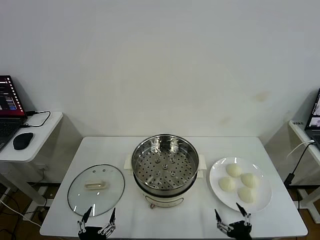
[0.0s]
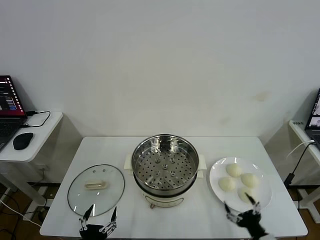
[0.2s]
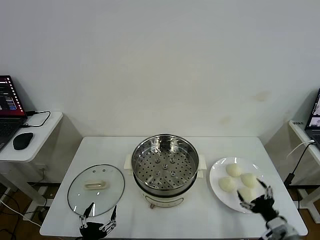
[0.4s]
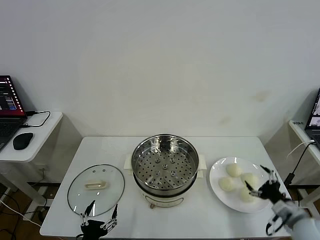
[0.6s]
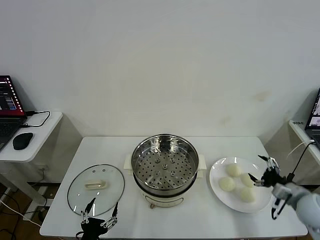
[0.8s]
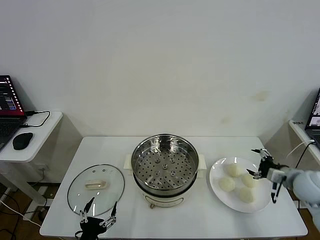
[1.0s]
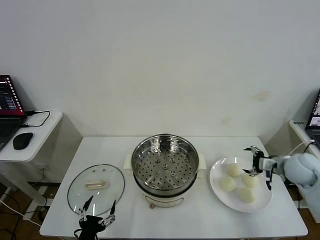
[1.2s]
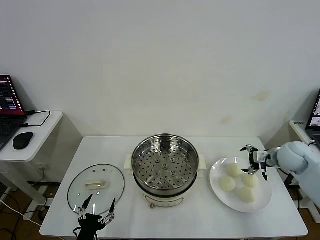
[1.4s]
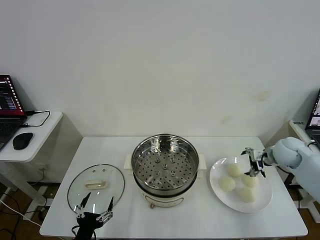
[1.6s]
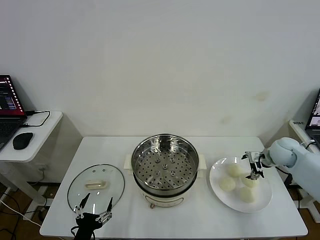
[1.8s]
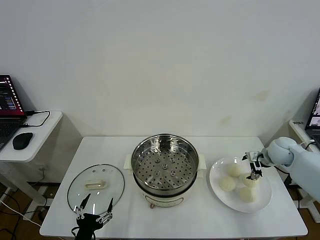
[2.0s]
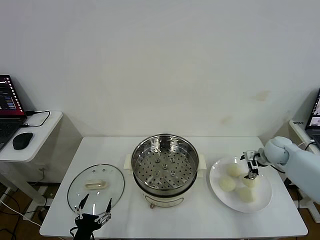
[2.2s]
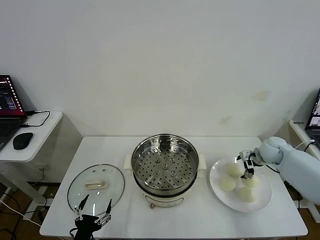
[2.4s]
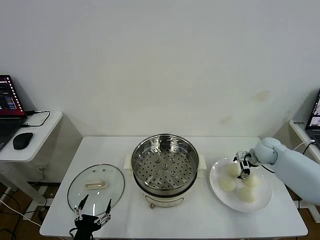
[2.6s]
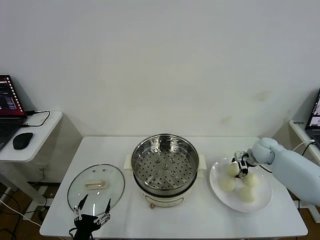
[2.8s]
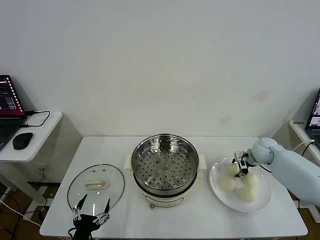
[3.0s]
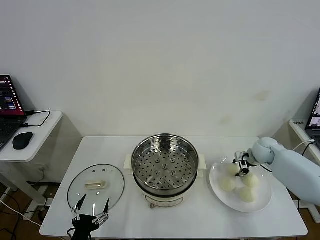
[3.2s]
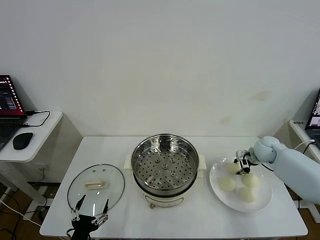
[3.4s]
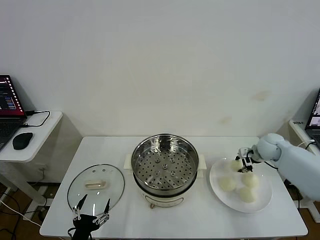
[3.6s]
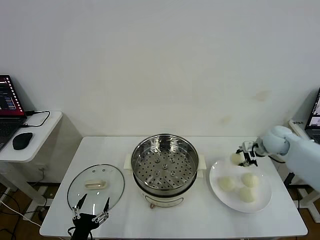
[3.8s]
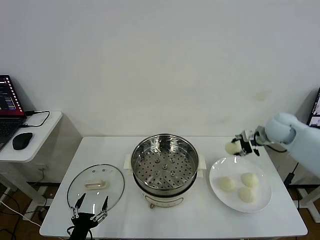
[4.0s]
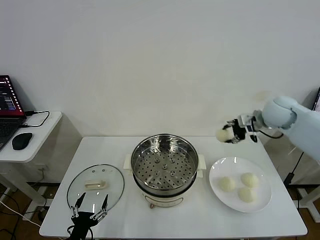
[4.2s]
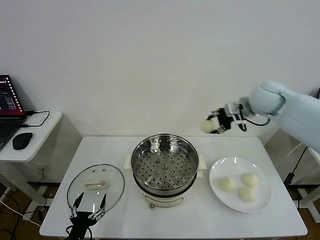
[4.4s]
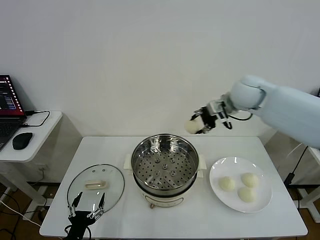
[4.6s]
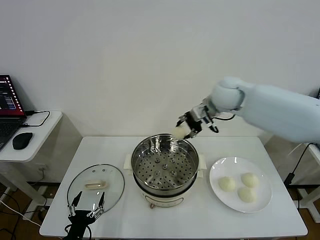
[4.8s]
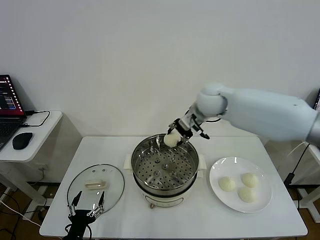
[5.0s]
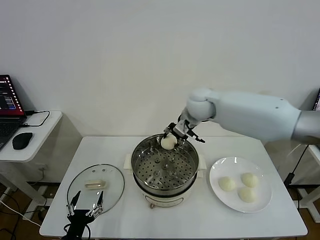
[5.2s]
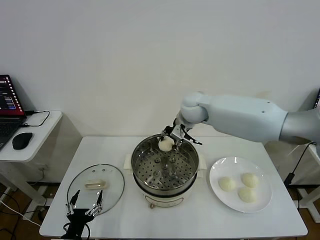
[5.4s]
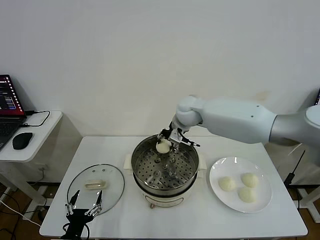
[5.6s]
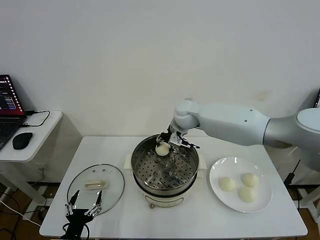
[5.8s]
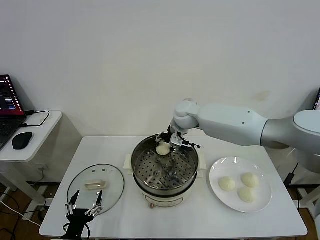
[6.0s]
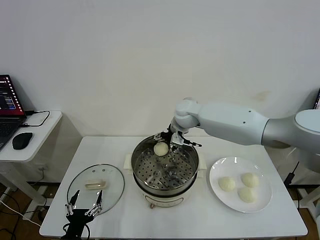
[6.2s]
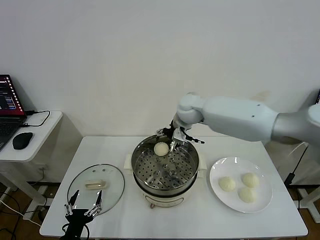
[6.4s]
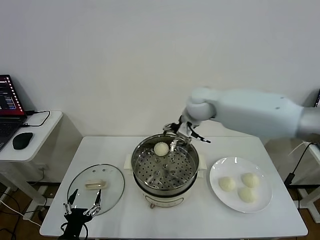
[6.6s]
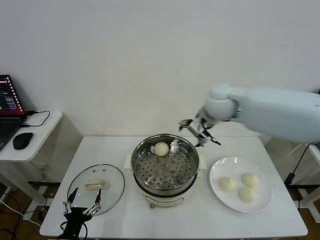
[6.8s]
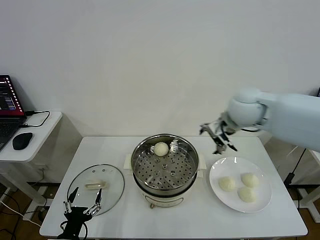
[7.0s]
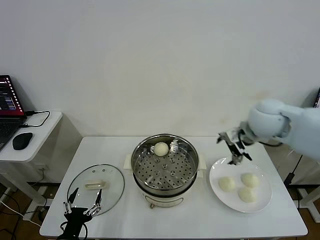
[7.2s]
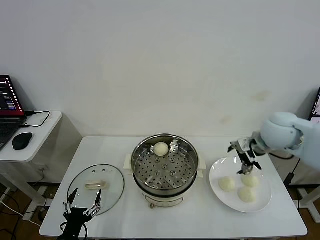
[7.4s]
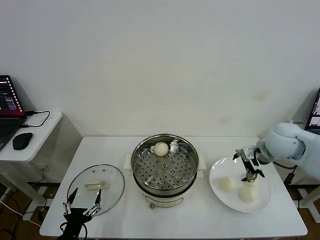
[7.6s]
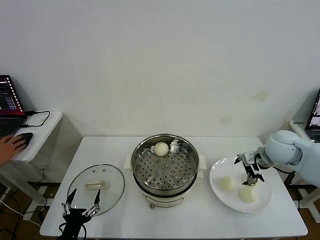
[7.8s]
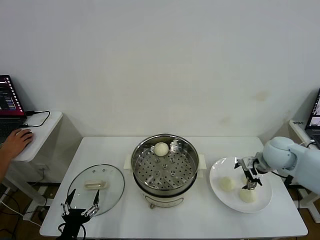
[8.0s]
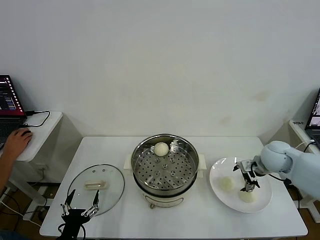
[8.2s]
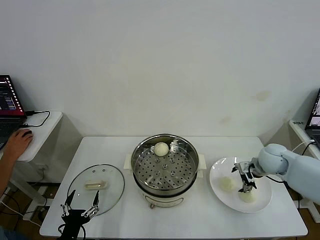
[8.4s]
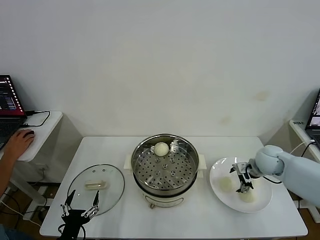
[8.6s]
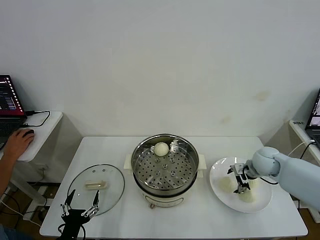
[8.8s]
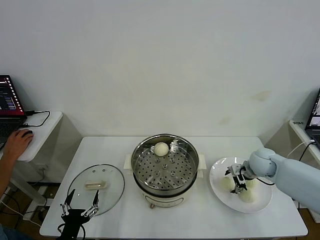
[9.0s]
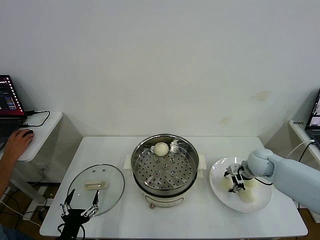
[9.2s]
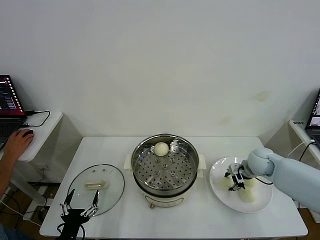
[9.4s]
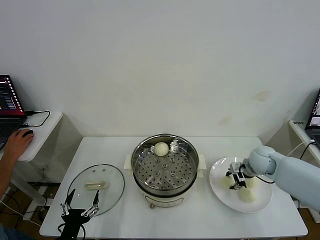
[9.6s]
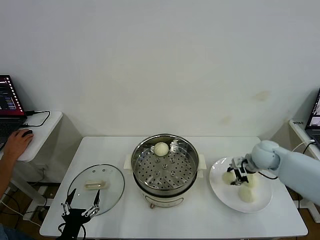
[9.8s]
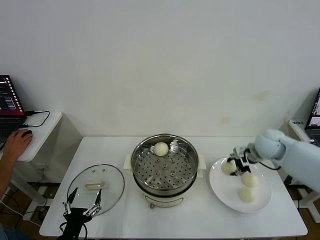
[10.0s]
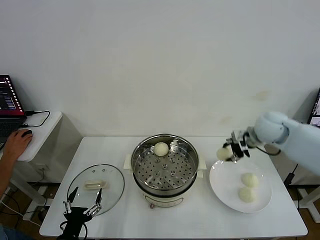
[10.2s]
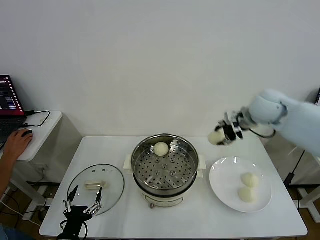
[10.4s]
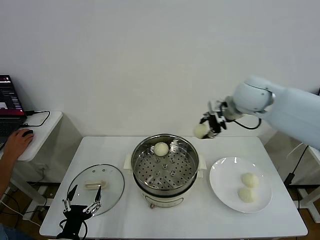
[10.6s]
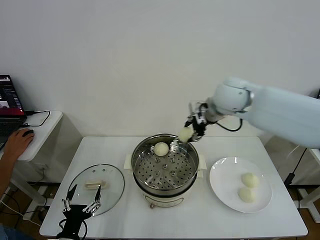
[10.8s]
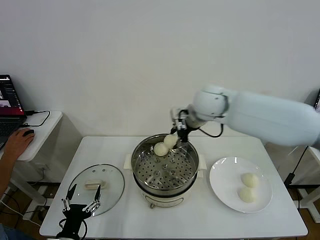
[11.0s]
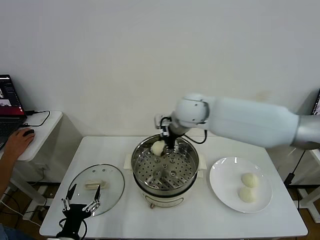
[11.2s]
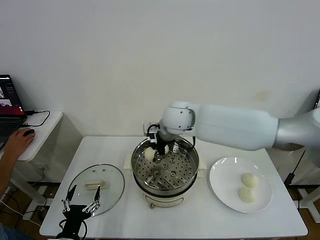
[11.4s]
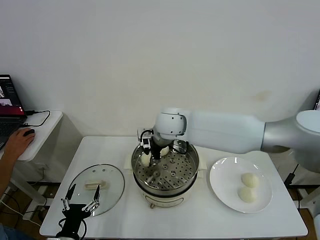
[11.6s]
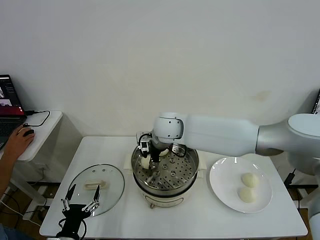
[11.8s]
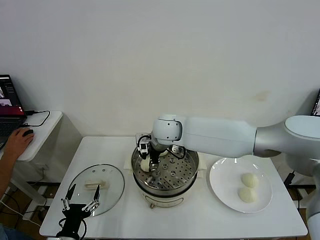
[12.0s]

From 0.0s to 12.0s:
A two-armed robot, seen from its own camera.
Task of the whole recording: take steamed baozi put them in steamer then cover it.
Step, from 0.0s to 3.2s: Grasp the baozi in the plate with right gripper.
Step, from 3.4s to 6.2s: Place the baozi on the steamer with right gripper.
Step, from 6.4s to 9.6s: Grasp the baozi in the plate with right gripper.
From 1.6s to 3.0s: The right gripper shifts roughly 10 cm downward and forward, and closes.
From 3.0s to 4.4s: The right gripper moves upward and to the left, roughly 25 cm, and closes.
From 4.4s to 6.0s: The right gripper moves to the left and downward, approximately 25 cm.
From 6.0s to 7.6s: The right gripper is displaced to the right and backward by approximately 30 cm, and opens up.
From 7.6s to 9.0s: The right gripper moves downward, approximately 15 cm.
From 9.0s to 10.4s: The right gripper is displaced upward by some 20 cm, and closes its fingers.
From 10.4s to 12.0s: The right gripper travels to the left by roughly 30 cm, and opens its fingers.

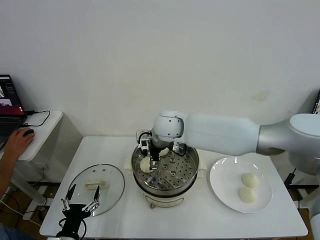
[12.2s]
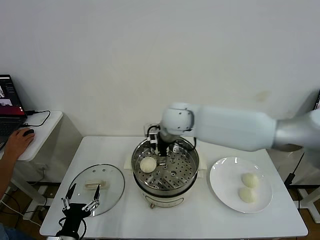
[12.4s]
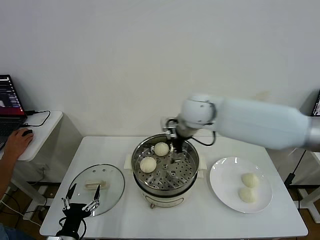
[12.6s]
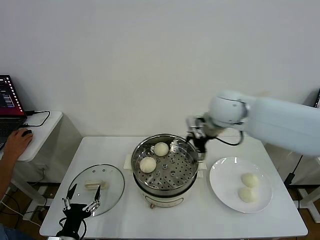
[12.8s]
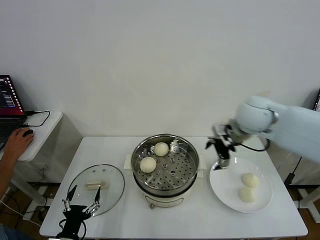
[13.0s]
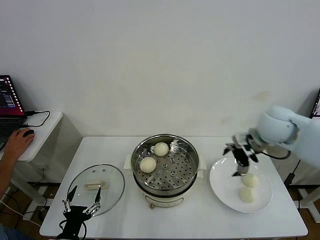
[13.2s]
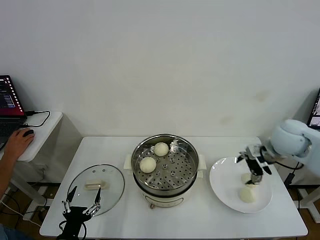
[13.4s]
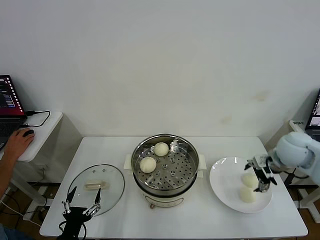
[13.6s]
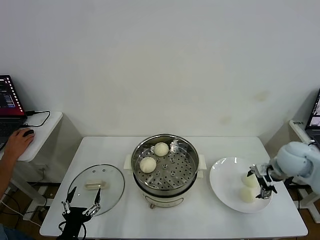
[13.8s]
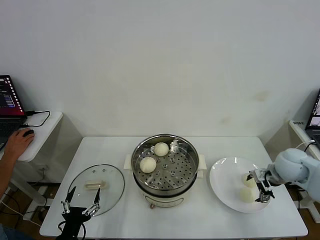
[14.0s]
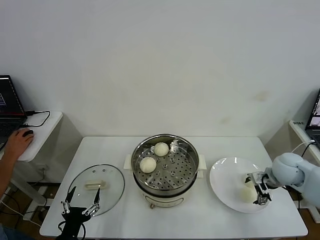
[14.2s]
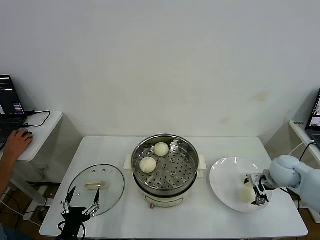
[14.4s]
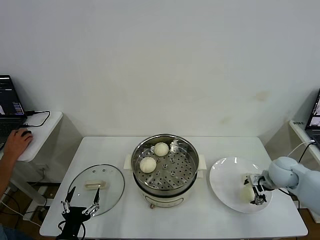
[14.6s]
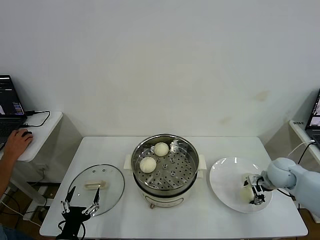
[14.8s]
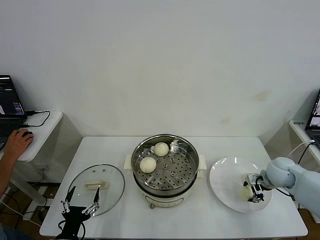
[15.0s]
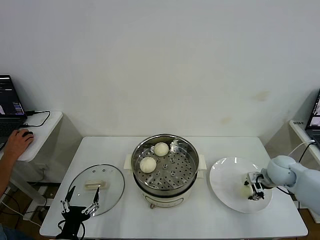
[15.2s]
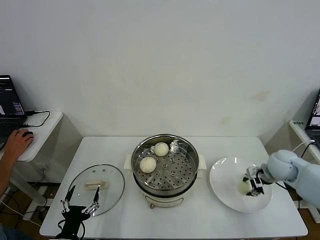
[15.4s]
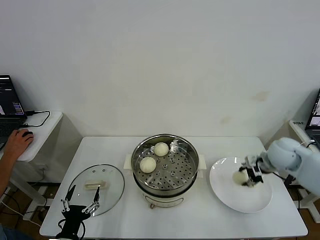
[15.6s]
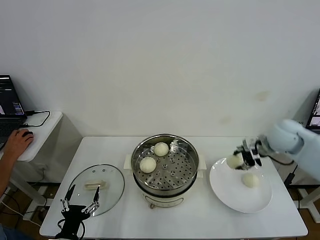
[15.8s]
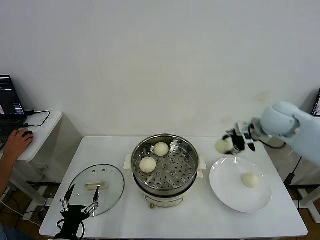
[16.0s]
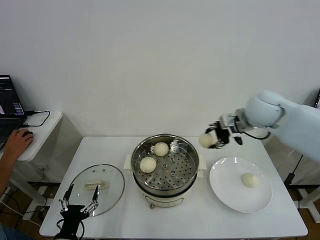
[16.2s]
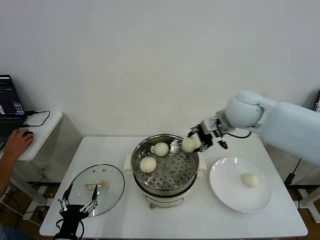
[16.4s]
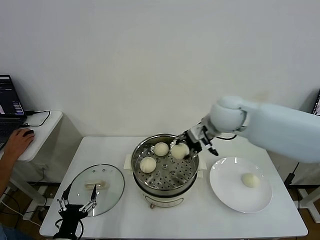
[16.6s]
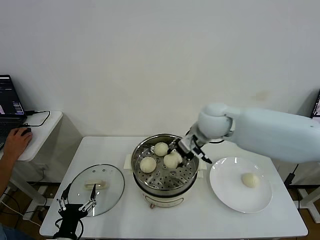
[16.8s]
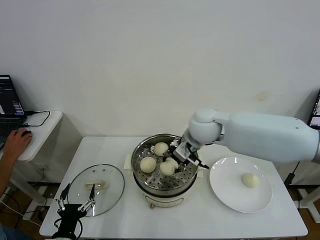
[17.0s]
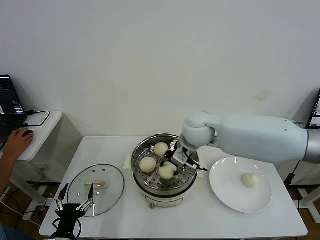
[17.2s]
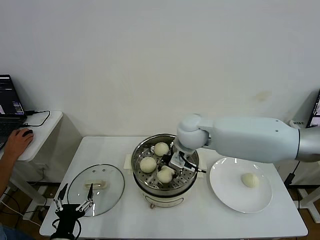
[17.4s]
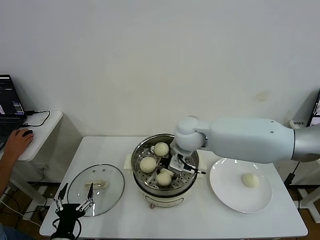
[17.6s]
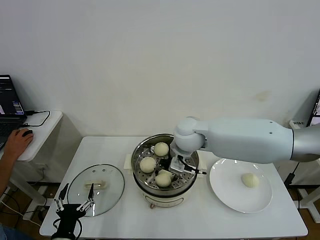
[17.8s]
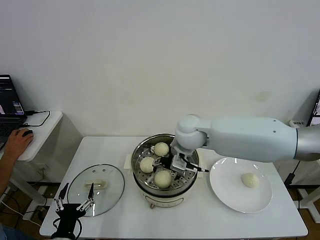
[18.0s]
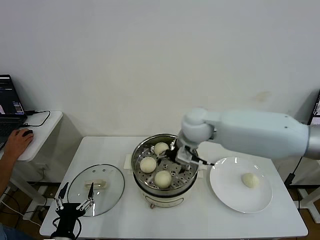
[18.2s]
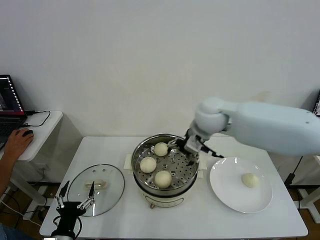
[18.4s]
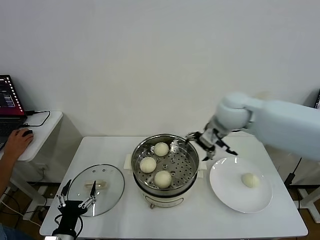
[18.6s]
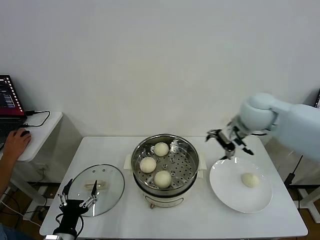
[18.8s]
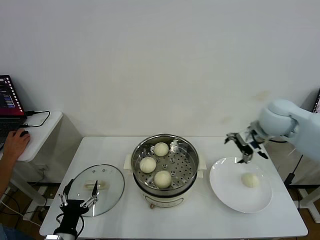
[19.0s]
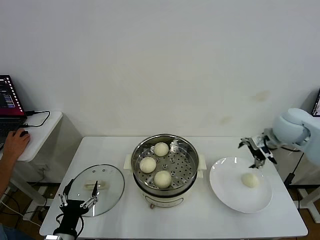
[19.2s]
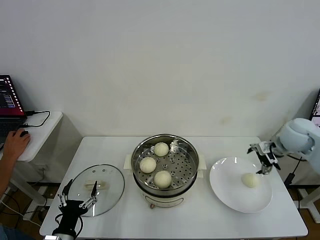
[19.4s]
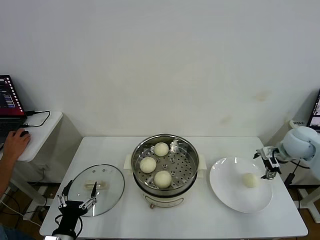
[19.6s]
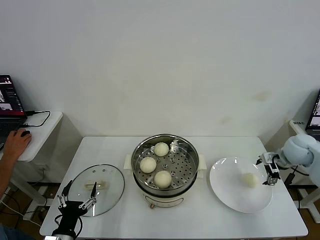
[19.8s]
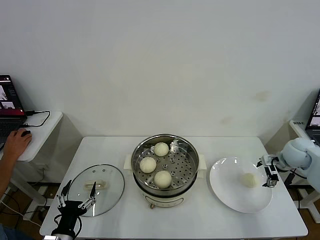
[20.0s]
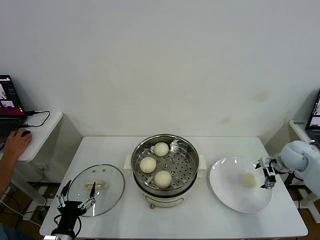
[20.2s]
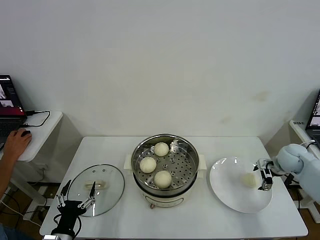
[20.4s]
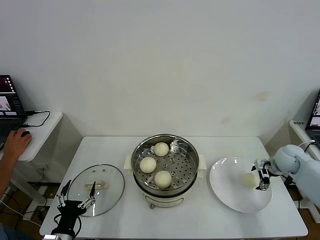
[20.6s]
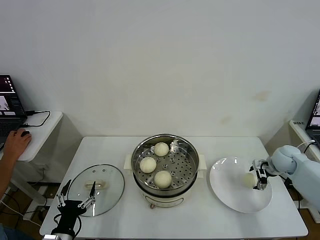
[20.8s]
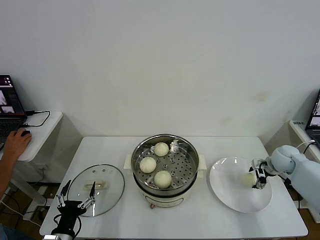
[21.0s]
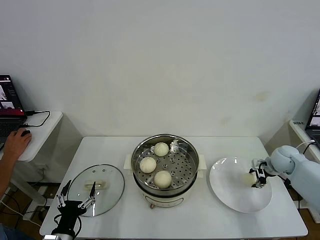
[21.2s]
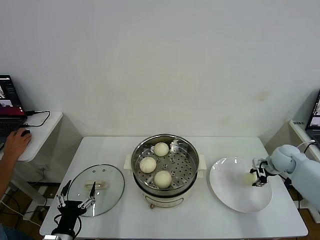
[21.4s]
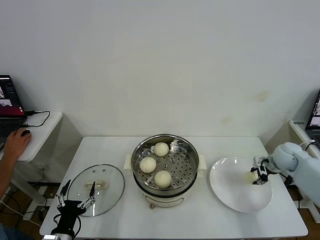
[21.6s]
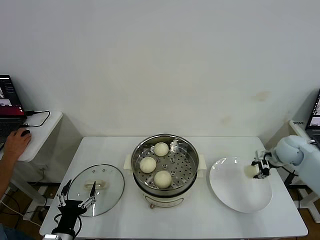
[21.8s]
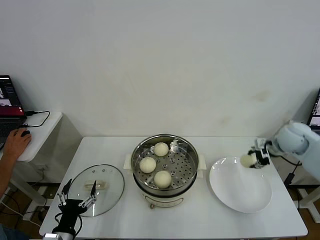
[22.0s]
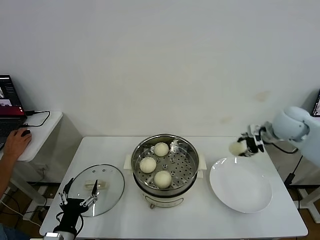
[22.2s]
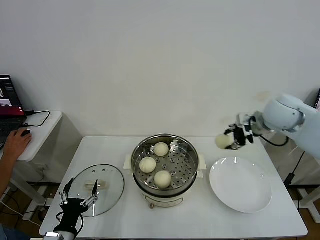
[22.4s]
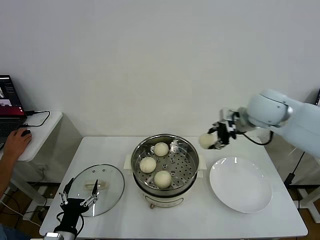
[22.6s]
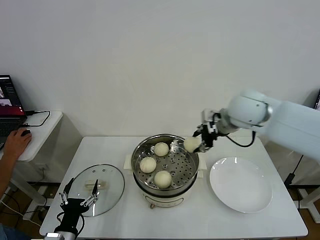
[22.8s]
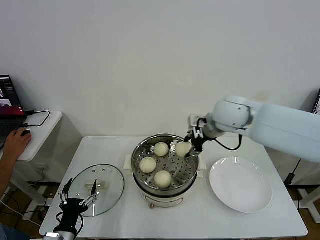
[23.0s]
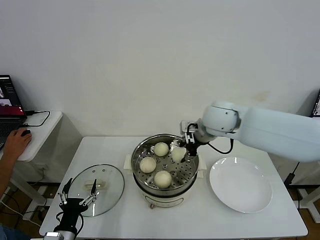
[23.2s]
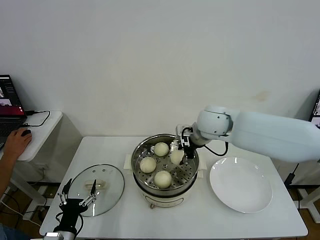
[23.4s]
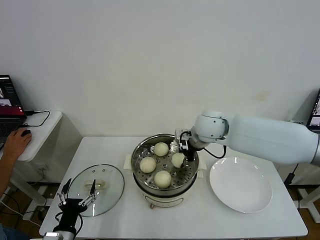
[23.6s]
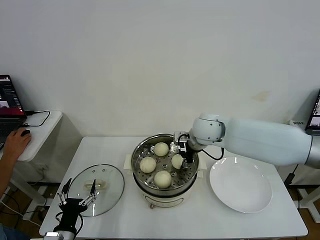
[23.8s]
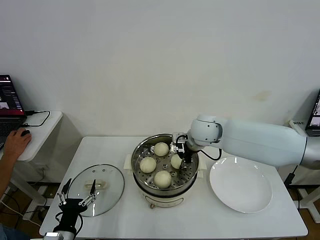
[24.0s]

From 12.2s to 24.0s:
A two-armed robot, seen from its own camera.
Task of the whole recording: take steamed baozi put them in steamer then cover it.
Step, from 12.4s to 15.0s: Grasp the baozi in the plate with right gripper.
Step, from 15.2s to 18.0s: Place the baozi on the steamer with right gripper.
Step, from 18.2s to 21.4s: Grasp the baozi in the plate with right gripper.
From 12.2s to 13.6s: The right gripper shifts roughly 35 cm to the right.
From 13.6s to 15.2s: The right gripper shifts some 10 cm downward, and closes its fingers.
From 15.2s to 16.6s: The right gripper shifts about 30 cm to the left and upward.
From 16.6s to 18.2s: The right gripper travels to the left by some 10 cm, and opens up.
From 18.2s to 19.6s: The right gripper moves to the right, about 35 cm.
From 19.6s to 21.0s: The right gripper travels downward by some 10 cm.
From 21.0s to 22.6s: The right gripper shifts approximately 30 cm upward and to the left, and closes up.
From 22.6s to 24.0s: The right gripper shifts roughly 20 cm to the left and downward.
